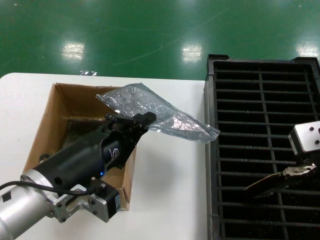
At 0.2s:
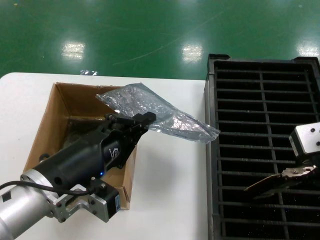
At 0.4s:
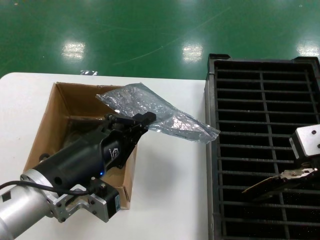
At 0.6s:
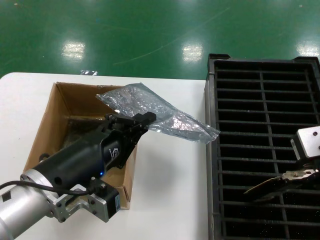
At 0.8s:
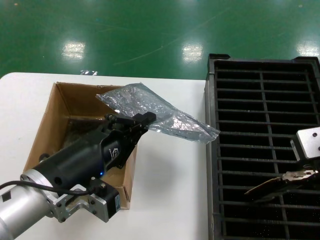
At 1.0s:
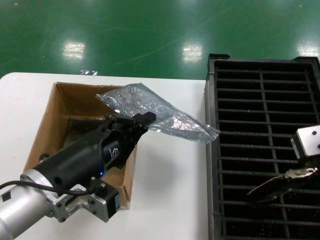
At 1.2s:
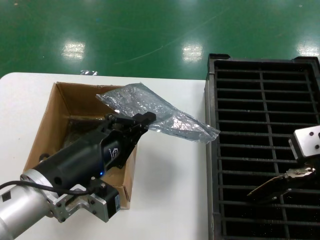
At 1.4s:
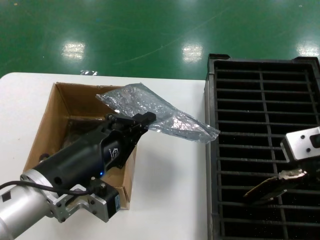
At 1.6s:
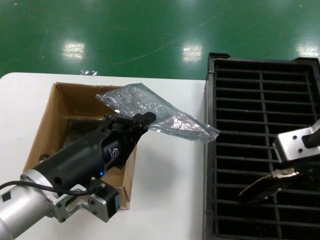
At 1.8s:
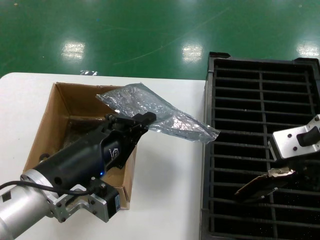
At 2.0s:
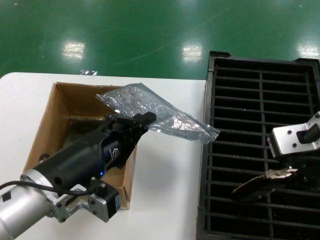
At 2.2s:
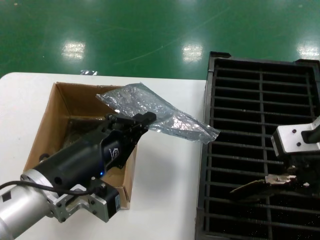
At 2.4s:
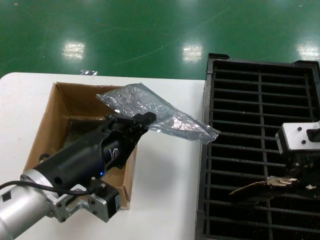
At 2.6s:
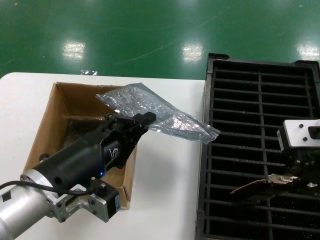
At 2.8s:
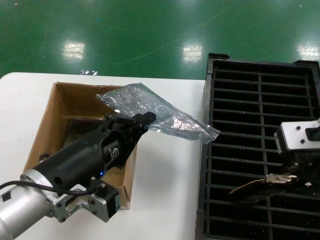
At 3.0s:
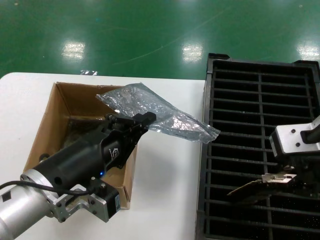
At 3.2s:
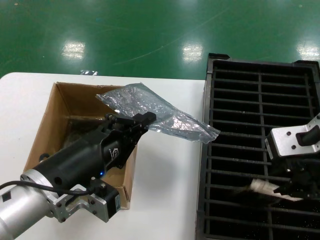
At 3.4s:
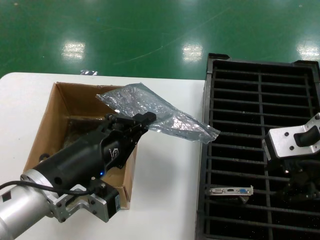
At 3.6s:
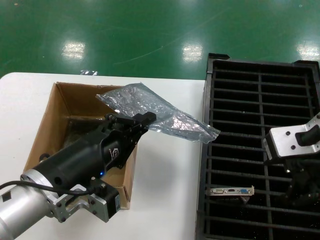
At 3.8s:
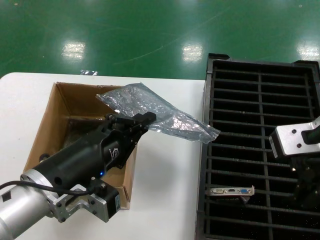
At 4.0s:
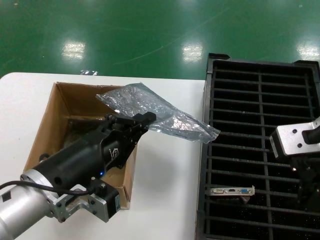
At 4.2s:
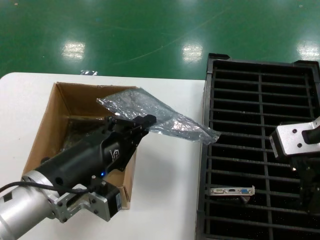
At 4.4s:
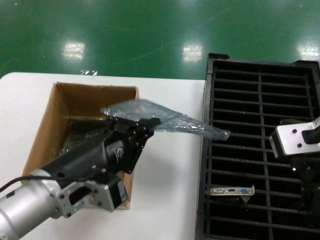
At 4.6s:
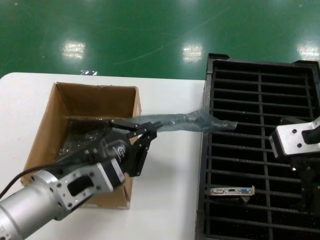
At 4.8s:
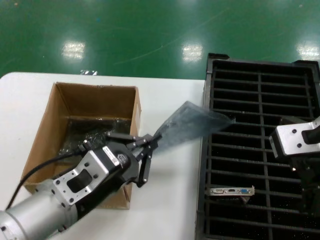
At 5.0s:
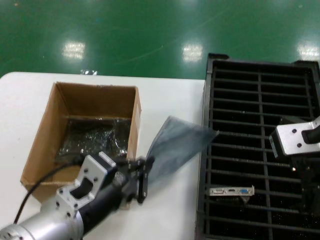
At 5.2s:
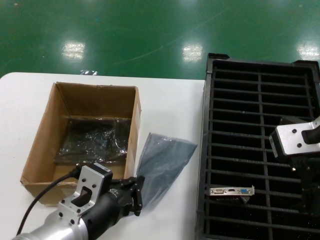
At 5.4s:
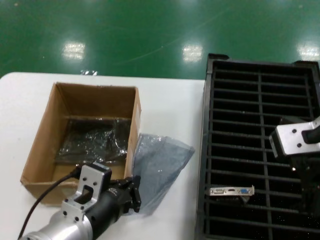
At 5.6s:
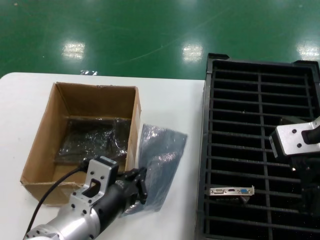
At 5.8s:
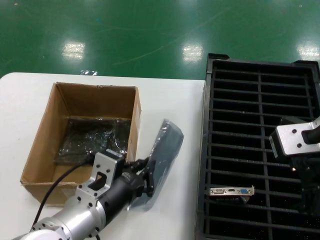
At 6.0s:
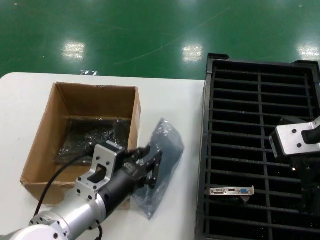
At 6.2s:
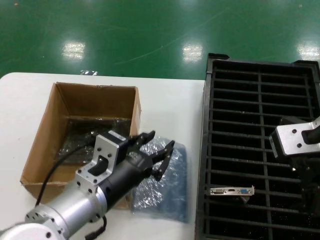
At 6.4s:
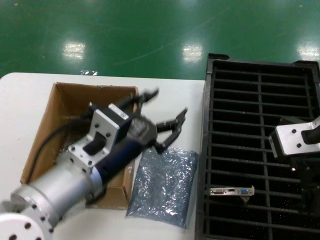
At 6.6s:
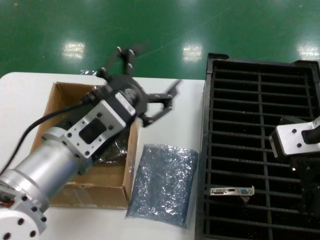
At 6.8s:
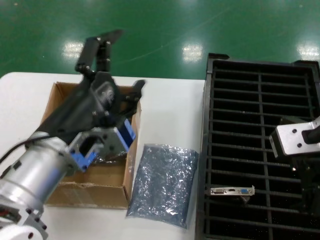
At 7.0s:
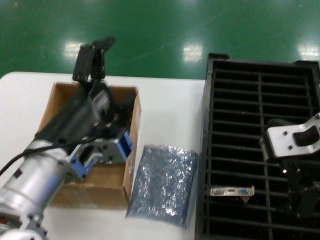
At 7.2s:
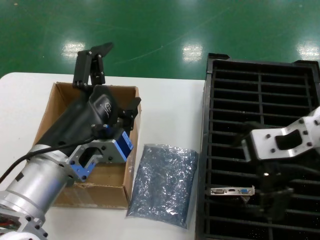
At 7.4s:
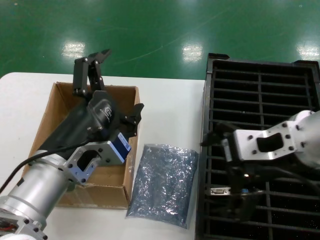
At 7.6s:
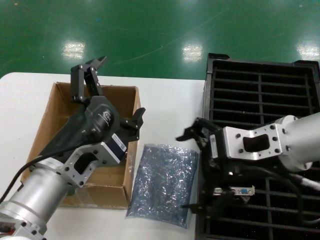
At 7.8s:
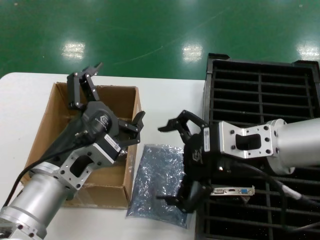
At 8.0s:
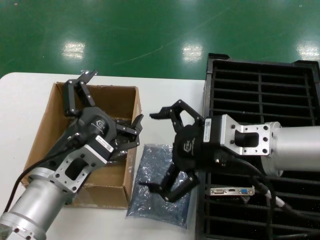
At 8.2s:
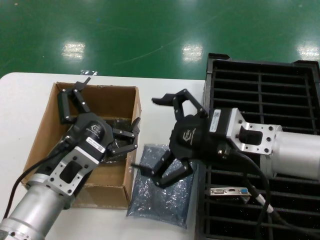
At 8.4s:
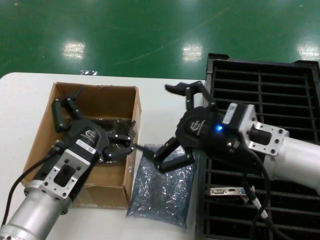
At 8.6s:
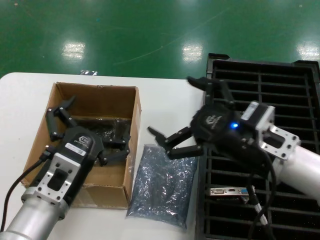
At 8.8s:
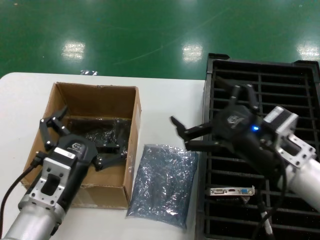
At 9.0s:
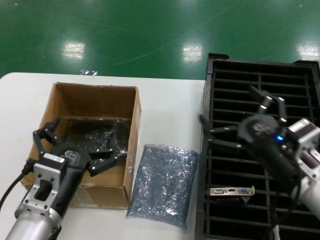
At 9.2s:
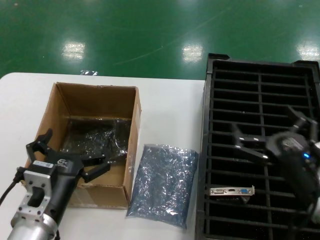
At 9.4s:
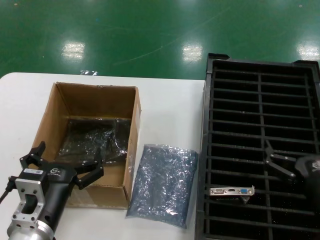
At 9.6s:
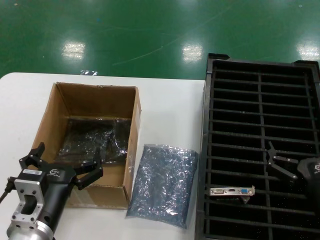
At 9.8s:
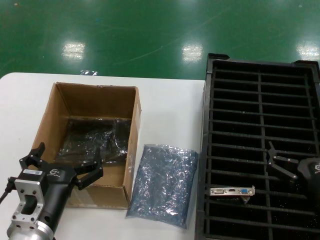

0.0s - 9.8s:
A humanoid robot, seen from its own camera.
Task of the whole recording: take out graphics card from box remove packaging put into black container.
Step, 0.0s - 3.2s: Place the hard disk in the hard disk enclosure.
Step, 3.6s - 6.0s: Place the down the bag.
0.0s - 1.4s: The two hands keep their place.
1.4s - 4.2s: There are only small adjustments of the hands.
4.2s - 5.6s: The left hand heads downward, covering approximately 5 cm.
5.6s - 7.0s: The left hand travels upward by roughly 10 cm.
7.0s - 8.4s: The left hand is displaced downward by roughly 10 cm; the right hand travels downward by about 15 cm.
8.4s - 9.8s: The right hand heads downward and to the right, covering some 20 cm; the left hand moves downward, some 10 cm.

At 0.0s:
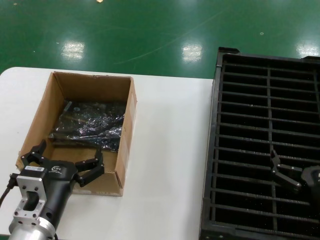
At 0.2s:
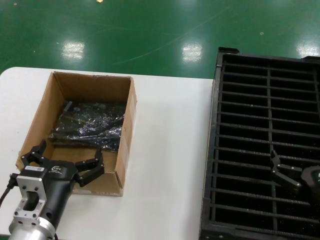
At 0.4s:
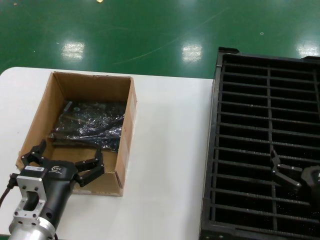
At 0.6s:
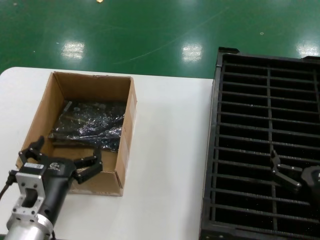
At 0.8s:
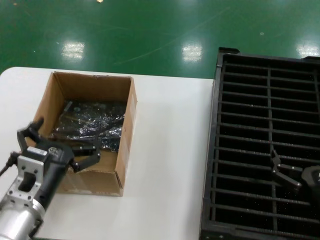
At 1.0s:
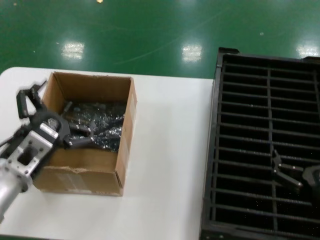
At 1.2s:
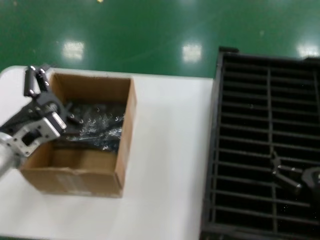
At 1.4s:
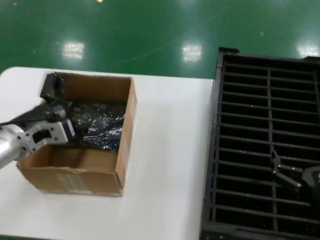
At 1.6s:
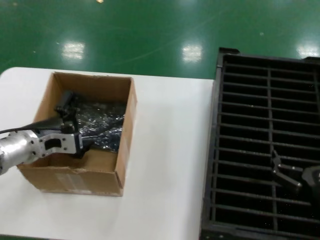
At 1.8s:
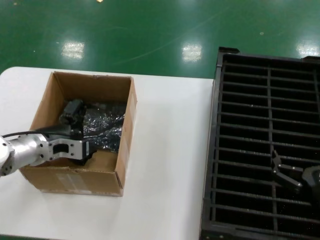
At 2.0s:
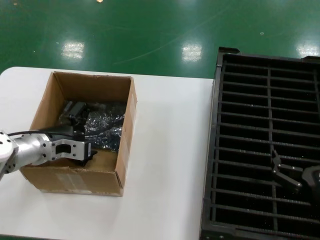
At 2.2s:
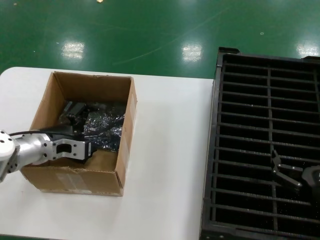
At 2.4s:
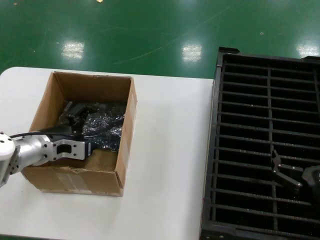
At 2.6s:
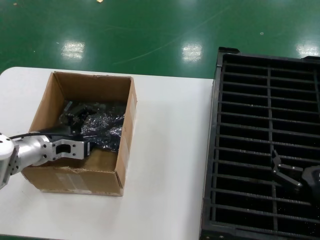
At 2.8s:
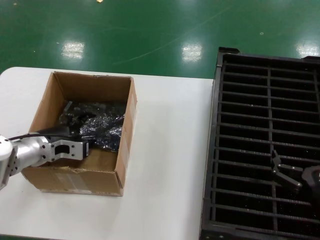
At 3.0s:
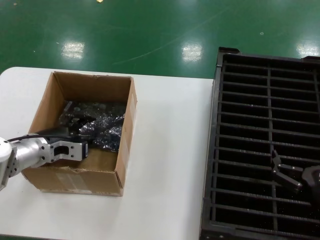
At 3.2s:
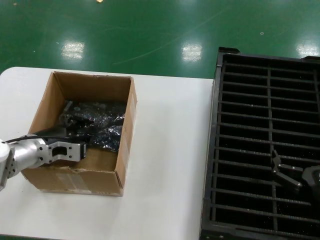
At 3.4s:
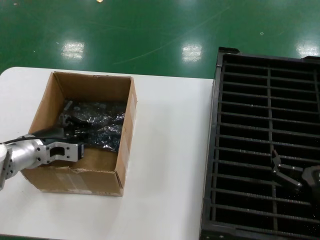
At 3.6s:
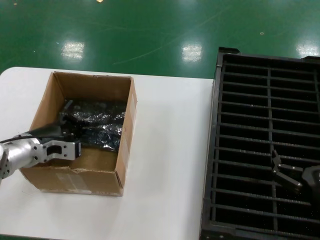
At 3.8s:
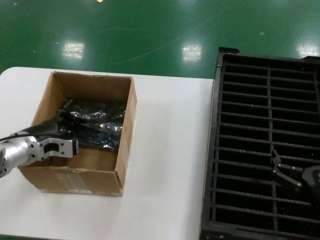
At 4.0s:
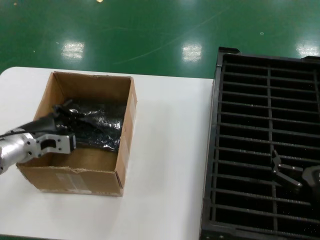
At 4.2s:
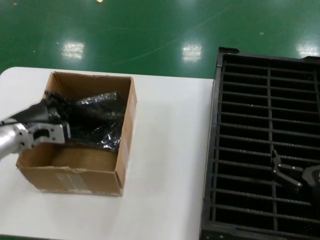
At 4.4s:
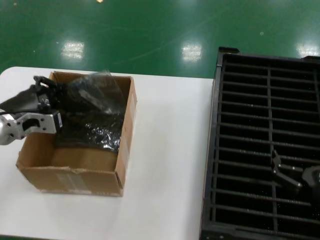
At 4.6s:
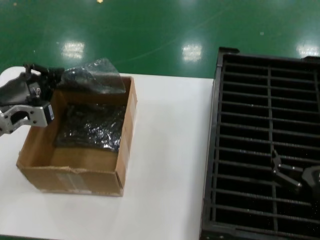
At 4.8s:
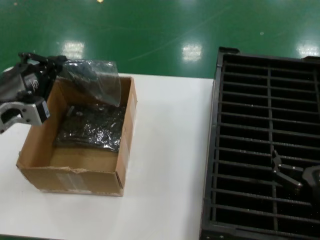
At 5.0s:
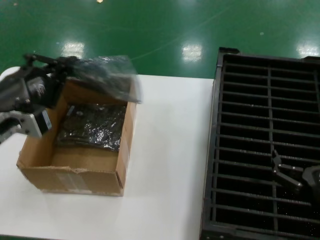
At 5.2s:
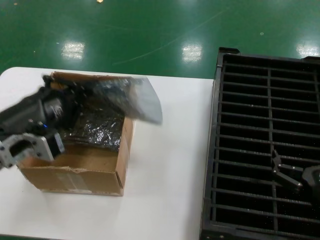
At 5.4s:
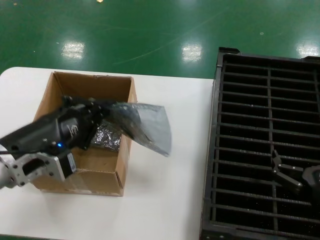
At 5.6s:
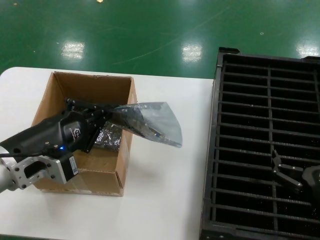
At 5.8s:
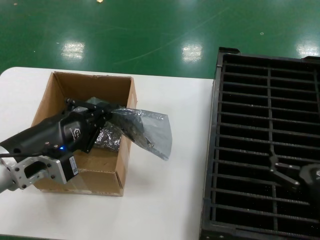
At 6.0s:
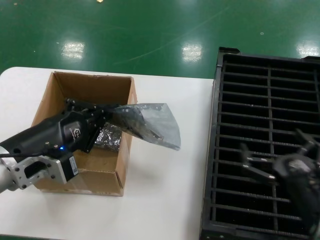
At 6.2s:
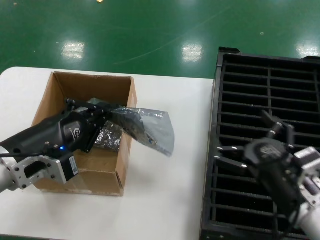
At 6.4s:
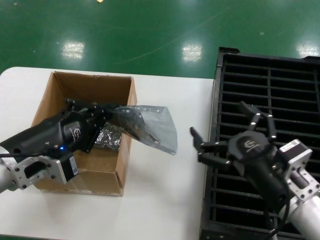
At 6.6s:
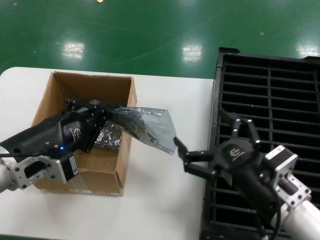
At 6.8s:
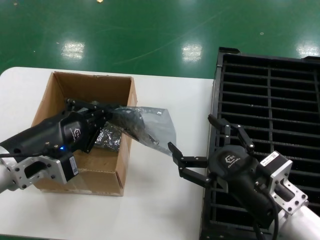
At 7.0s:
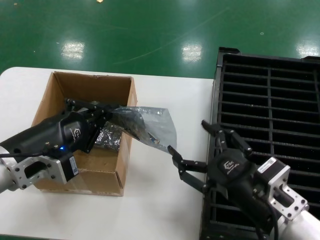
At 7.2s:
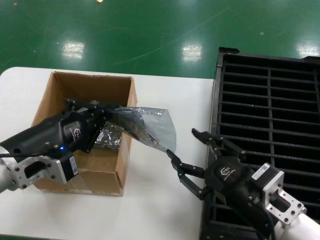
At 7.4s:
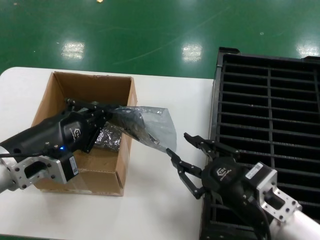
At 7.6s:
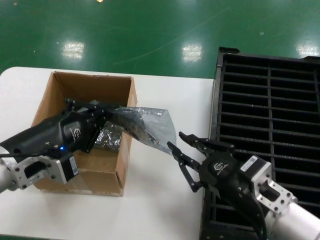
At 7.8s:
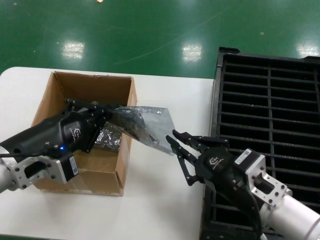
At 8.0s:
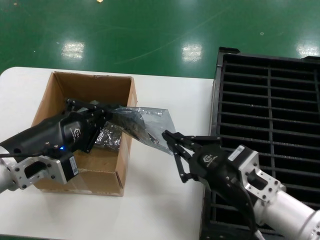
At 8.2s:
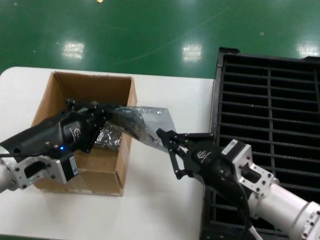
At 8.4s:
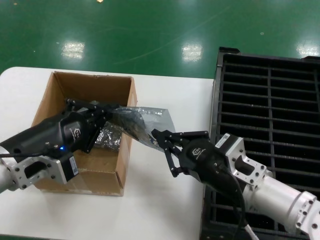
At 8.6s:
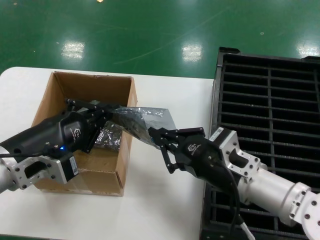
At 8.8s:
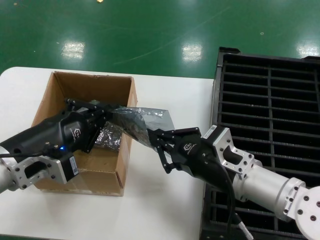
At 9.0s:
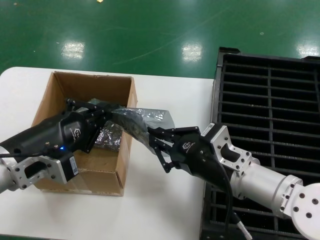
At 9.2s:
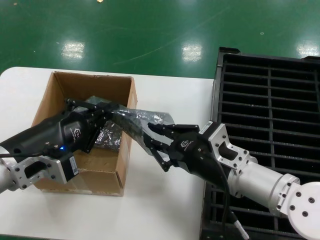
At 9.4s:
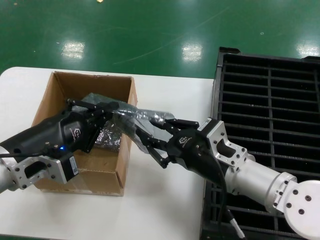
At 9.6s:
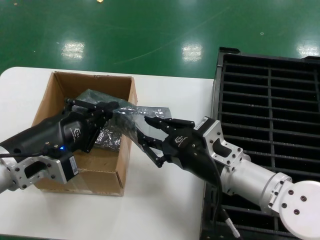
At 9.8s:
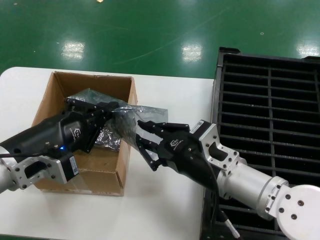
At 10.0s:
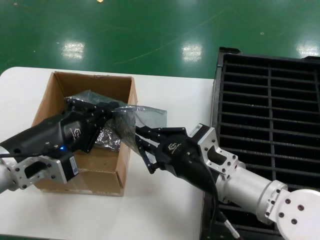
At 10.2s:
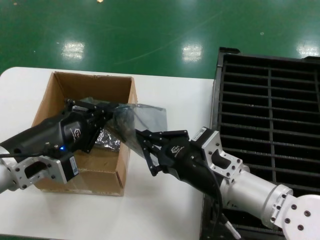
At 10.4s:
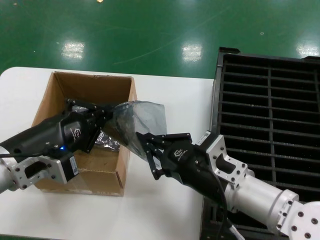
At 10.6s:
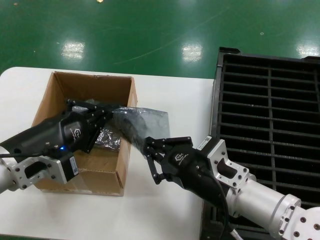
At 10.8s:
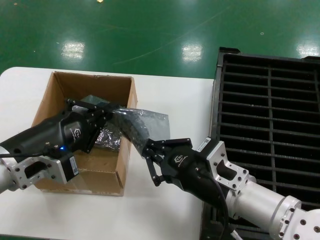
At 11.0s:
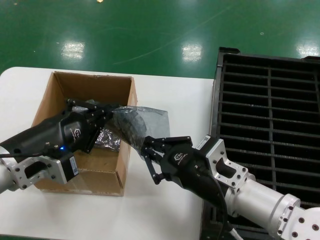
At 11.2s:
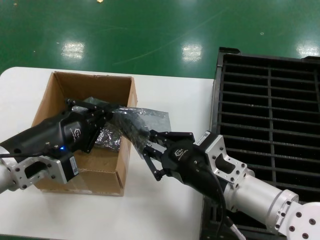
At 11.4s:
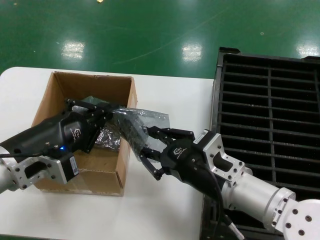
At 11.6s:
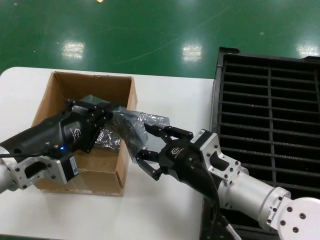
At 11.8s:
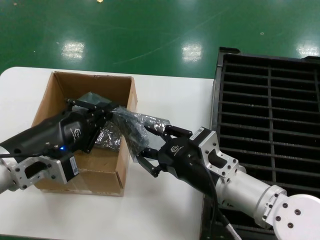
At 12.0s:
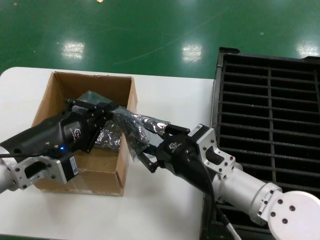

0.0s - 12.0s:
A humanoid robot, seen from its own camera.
Task of the whole recording: take out graphics card from box remove packaging put into black container.
Step, 0.0s - 3.4s: Grasp the bag.
Step, 3.6s - 5.8s: Lift the bag.
0.0s - 1.6s: The left hand moves forward, to the left and upward, some 20 cm.
1.6s - 3.0s: The left hand shifts by some 5 cm.
3.0s - 4.4s: The left hand shifts some 5 cm upward.
4.4s - 6.0s: The left hand moves backward and to the right, approximately 15 cm.
6.0s - 7.6s: The right hand travels to the left by about 5 cm.
7.6s - 9.0s: The right hand heads forward, covering some 5 cm.
9.0s - 12.0s: The hands stay close to where they were, moving slightly.
